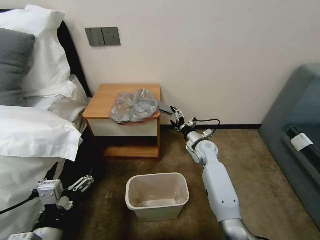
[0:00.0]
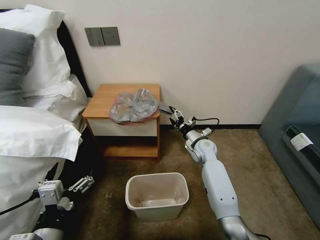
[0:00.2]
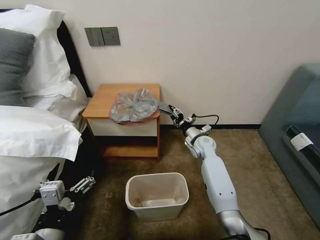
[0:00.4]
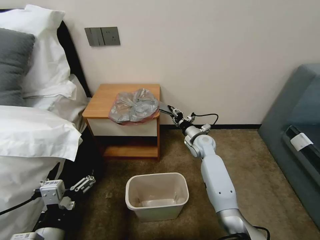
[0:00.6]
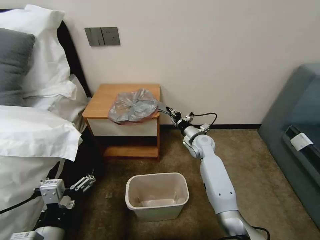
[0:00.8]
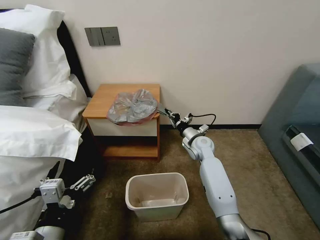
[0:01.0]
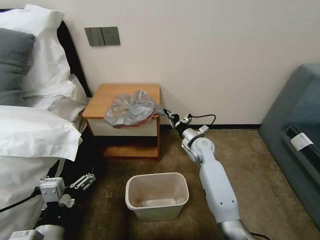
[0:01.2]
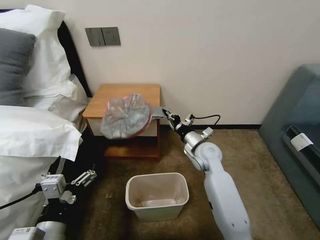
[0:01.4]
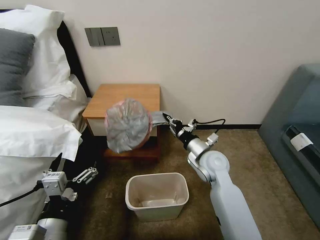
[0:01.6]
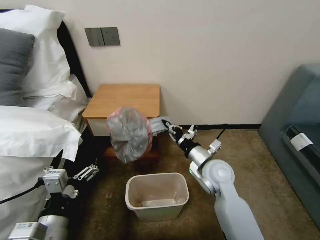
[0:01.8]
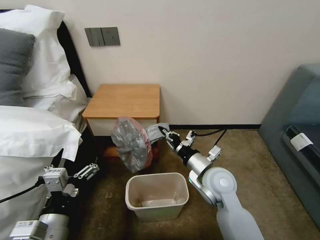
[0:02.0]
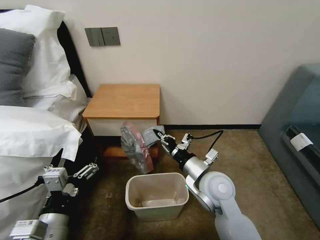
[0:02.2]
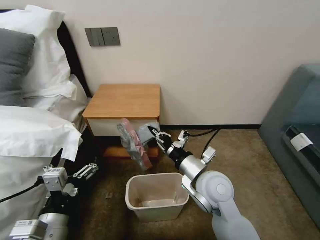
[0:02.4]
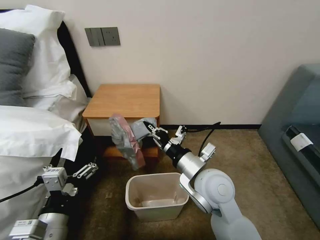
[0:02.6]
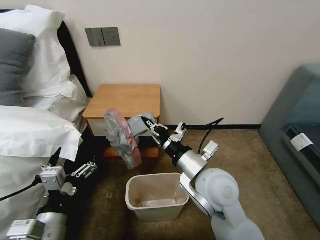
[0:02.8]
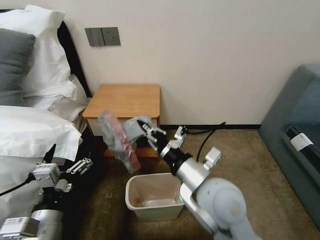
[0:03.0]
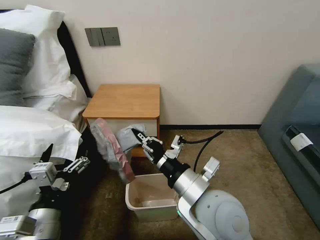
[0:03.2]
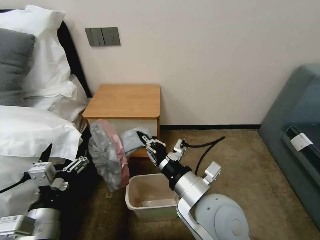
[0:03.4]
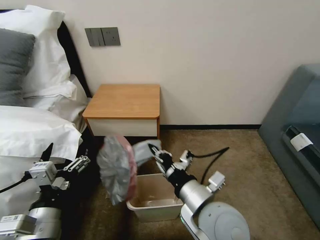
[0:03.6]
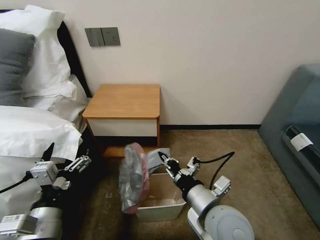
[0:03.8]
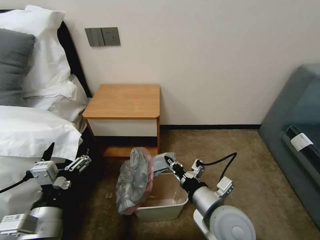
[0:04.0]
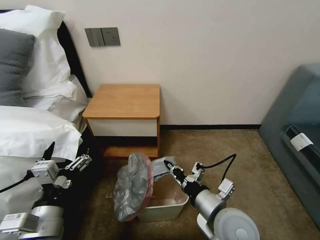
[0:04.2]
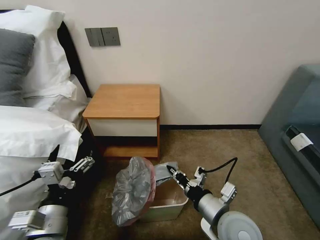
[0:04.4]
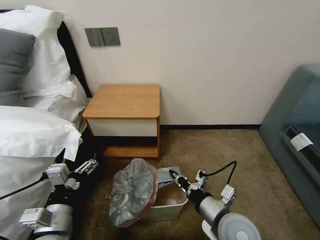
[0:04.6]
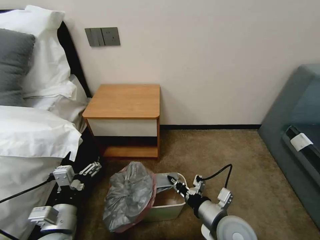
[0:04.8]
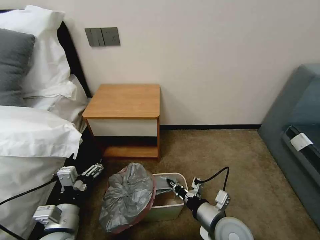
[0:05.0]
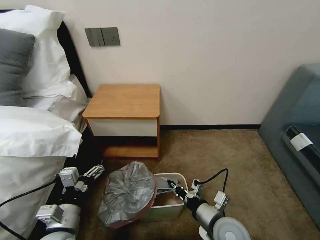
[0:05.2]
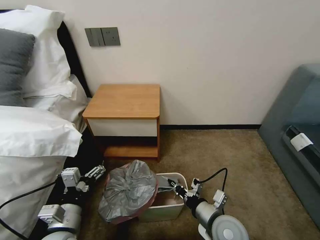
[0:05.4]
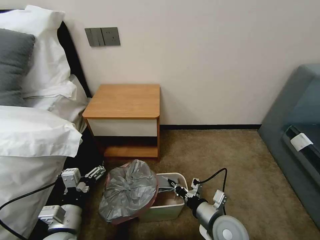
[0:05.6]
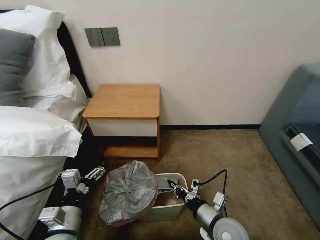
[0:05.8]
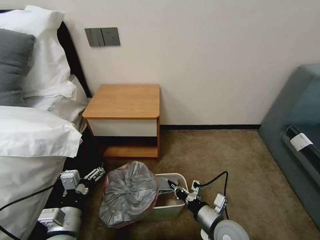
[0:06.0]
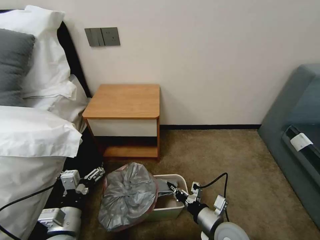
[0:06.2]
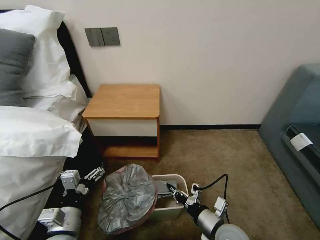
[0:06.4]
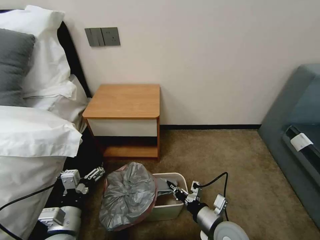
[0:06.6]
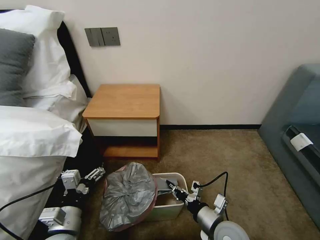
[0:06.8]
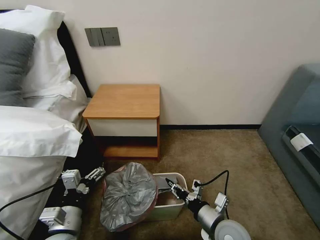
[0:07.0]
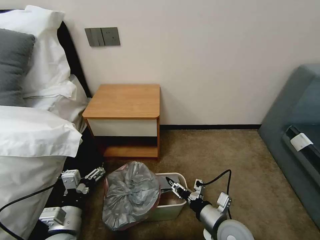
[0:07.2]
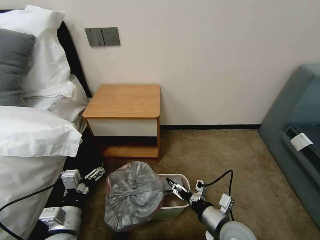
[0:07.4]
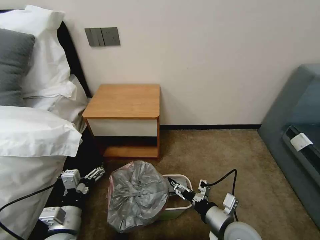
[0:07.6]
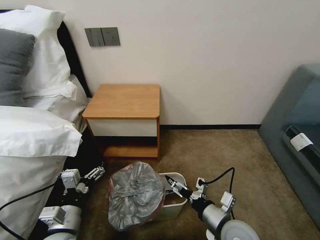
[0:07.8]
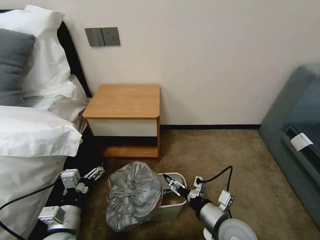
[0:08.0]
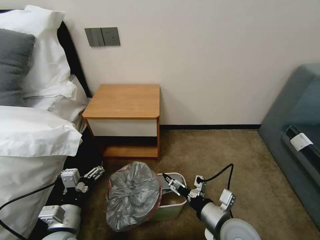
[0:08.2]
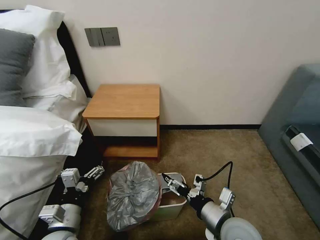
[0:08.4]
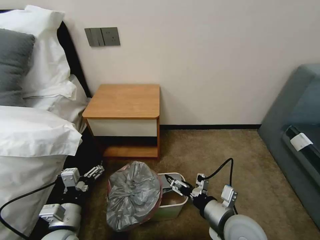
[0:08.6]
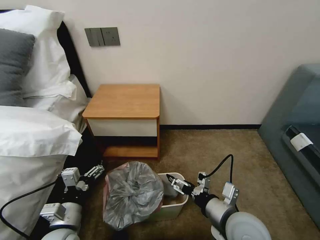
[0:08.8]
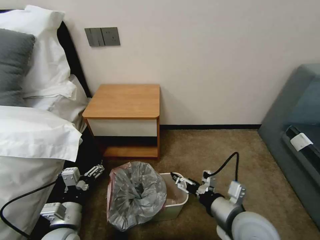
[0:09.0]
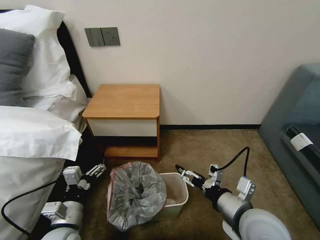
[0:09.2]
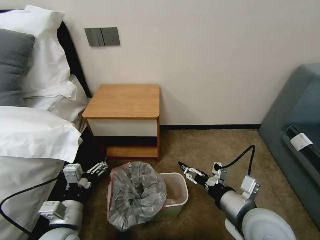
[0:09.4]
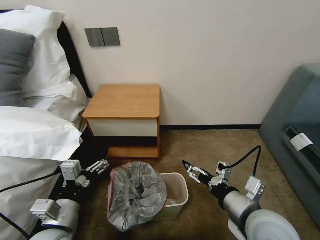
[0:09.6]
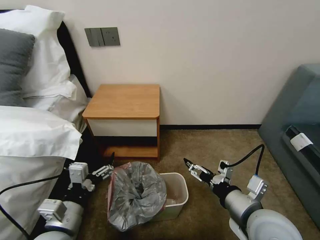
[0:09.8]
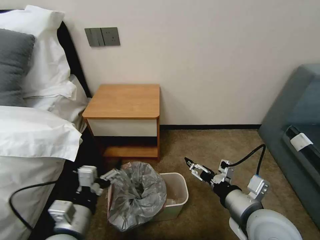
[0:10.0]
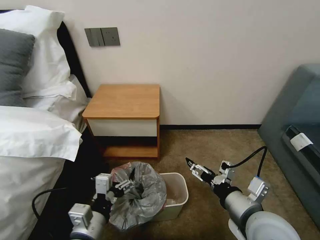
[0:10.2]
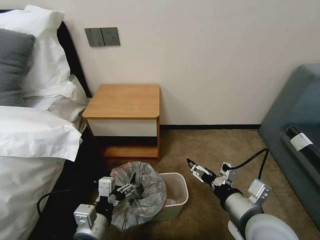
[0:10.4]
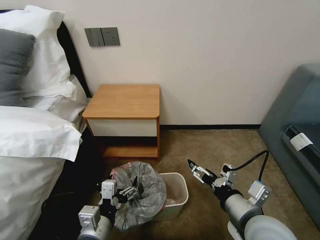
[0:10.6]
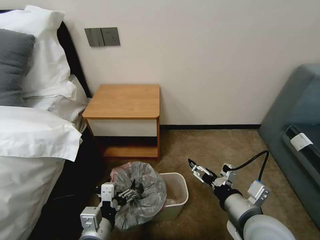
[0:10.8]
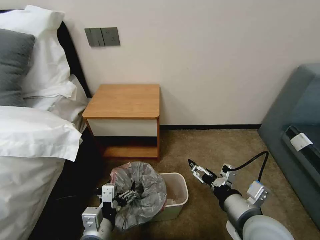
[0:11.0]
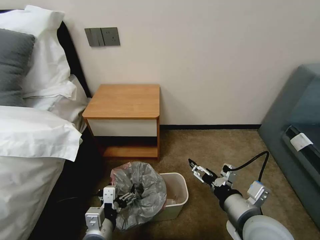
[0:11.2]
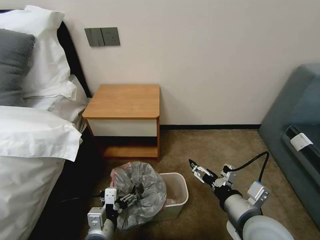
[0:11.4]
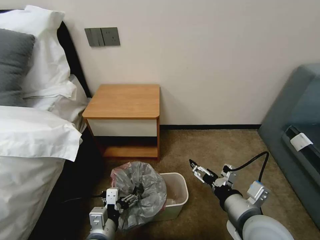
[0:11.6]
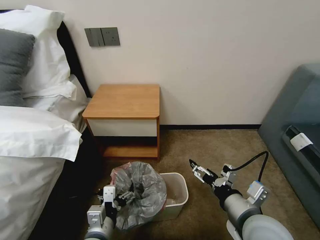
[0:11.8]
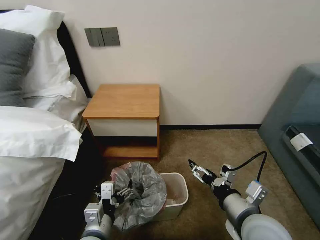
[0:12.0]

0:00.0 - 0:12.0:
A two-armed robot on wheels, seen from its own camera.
Task of the whole recording: Pick up the garbage bag from the table and place it over the trash can.
0:00.0 - 0:01.6: The right gripper heads backward and upward, covering approximately 10 cm, and closes.
0:01.6 - 0:03.0: The right gripper heads backward and upward, covering approximately 20 cm.
0:03.0 - 0:04.4: The right gripper goes some 10 cm downward and to the right.
0:04.4 - 0:06.0: The right gripper goes roughly 10 cm downward, while the left gripper travels downward by roughly 5 cm.
0:06.0 - 0:07.6: The right gripper opens up.
0:07.6 - 0:09.0: The right gripper travels upward by some 10 cm.
0:09.0 - 0:10.4: The left gripper heads to the right, covering approximately 10 cm.
0:10.4 - 0:12.0: The grippers stay close to where they were, moving slightly.

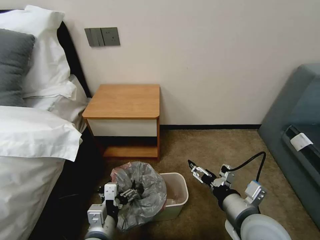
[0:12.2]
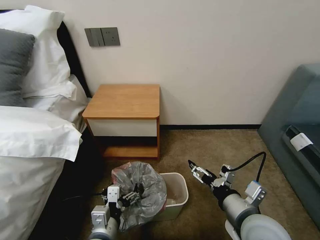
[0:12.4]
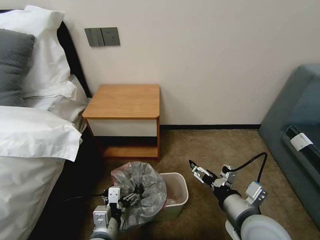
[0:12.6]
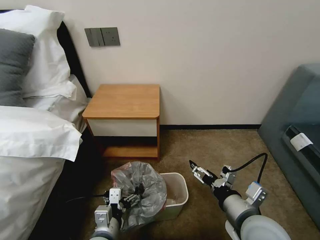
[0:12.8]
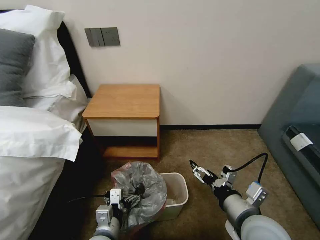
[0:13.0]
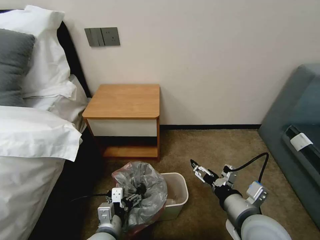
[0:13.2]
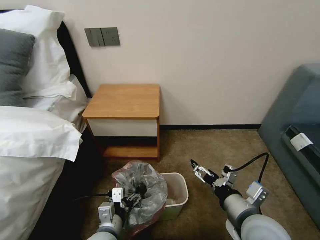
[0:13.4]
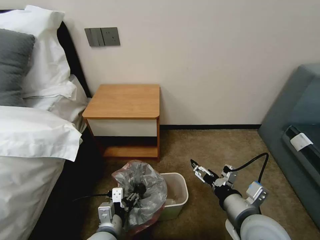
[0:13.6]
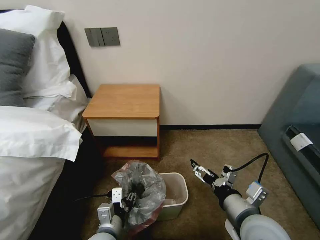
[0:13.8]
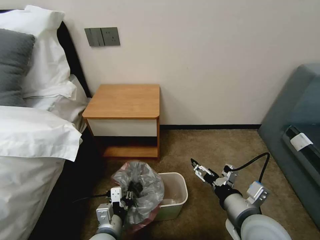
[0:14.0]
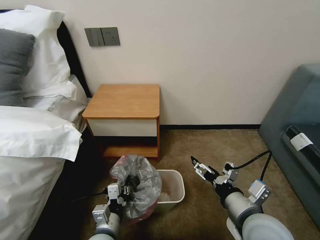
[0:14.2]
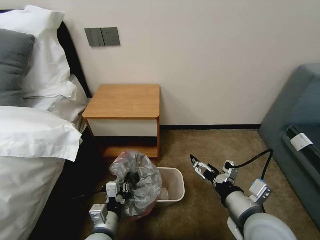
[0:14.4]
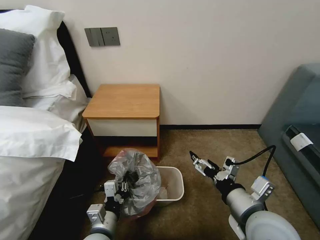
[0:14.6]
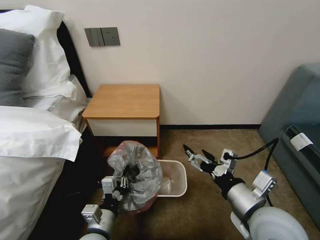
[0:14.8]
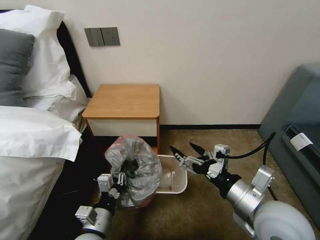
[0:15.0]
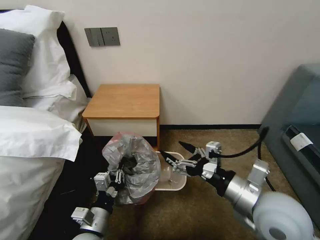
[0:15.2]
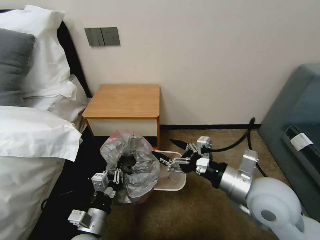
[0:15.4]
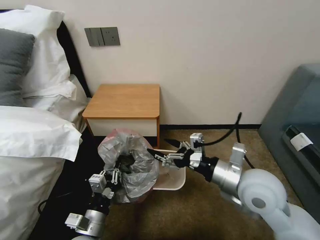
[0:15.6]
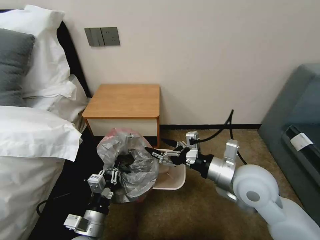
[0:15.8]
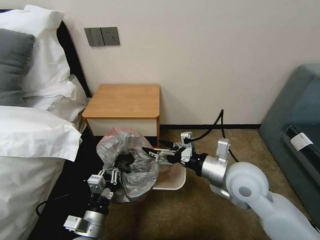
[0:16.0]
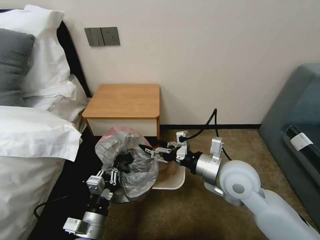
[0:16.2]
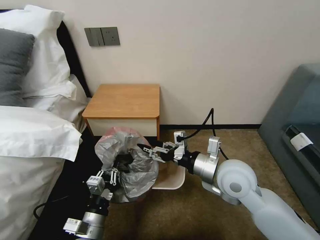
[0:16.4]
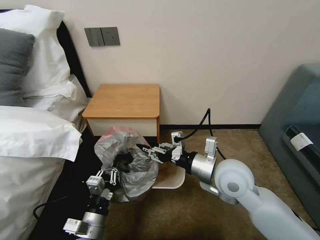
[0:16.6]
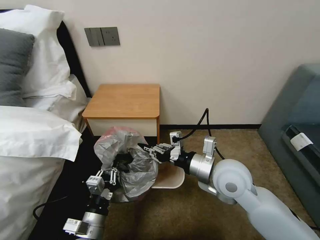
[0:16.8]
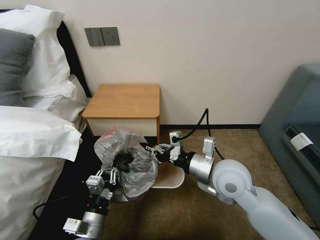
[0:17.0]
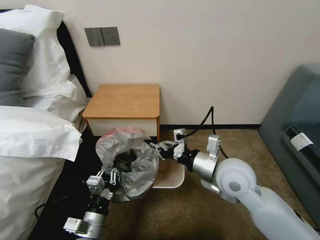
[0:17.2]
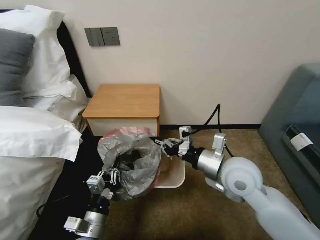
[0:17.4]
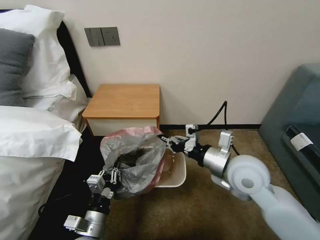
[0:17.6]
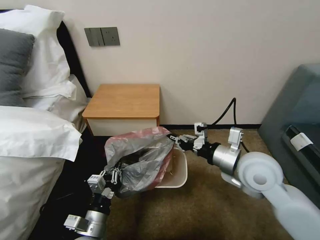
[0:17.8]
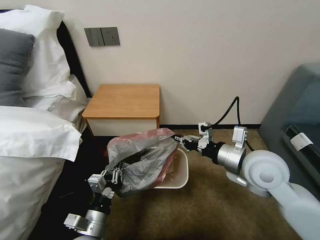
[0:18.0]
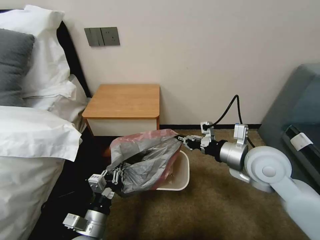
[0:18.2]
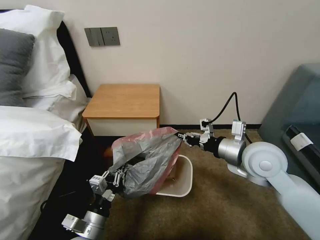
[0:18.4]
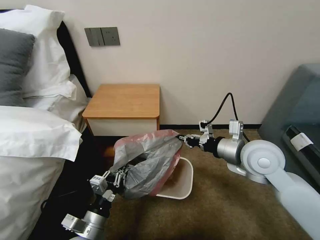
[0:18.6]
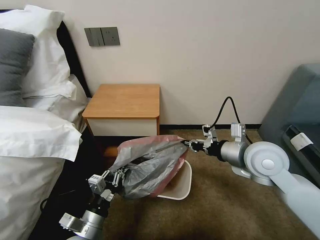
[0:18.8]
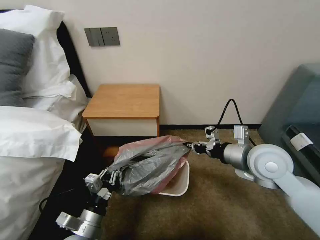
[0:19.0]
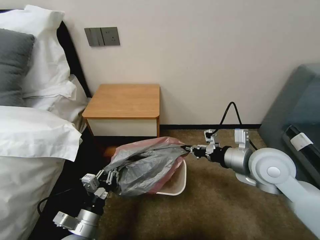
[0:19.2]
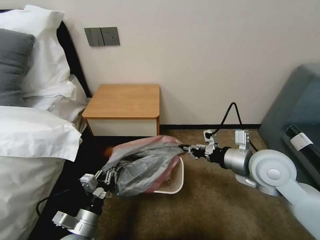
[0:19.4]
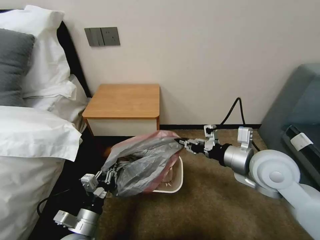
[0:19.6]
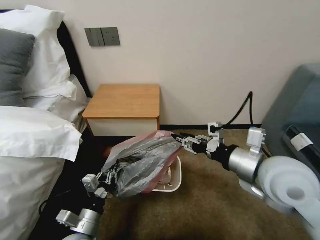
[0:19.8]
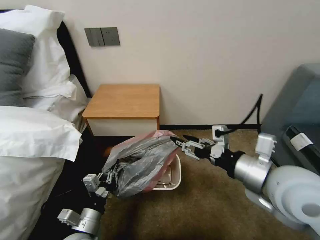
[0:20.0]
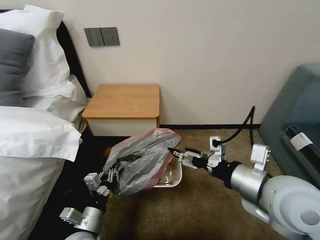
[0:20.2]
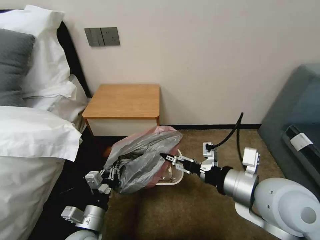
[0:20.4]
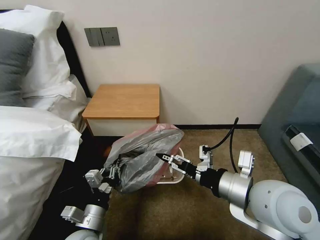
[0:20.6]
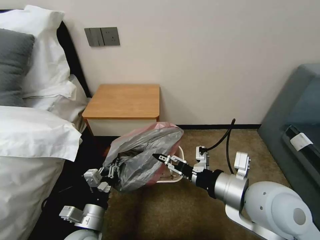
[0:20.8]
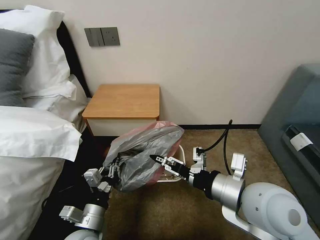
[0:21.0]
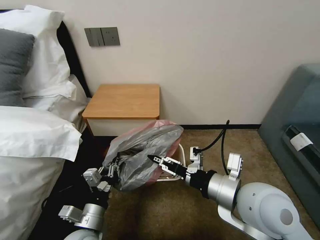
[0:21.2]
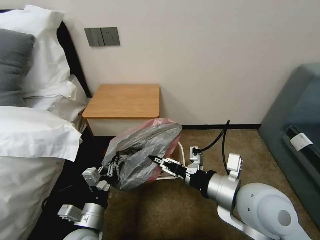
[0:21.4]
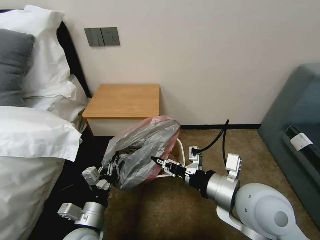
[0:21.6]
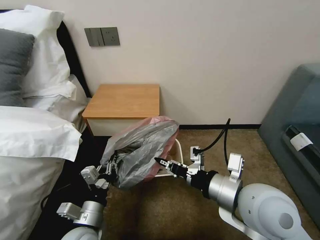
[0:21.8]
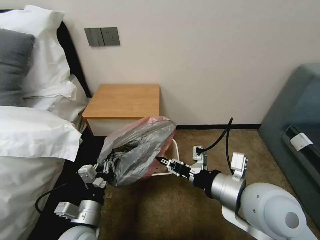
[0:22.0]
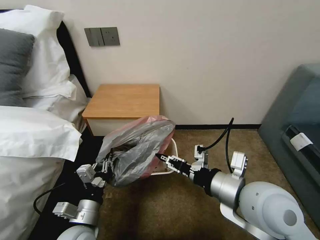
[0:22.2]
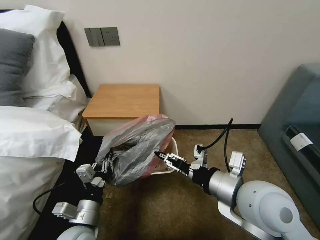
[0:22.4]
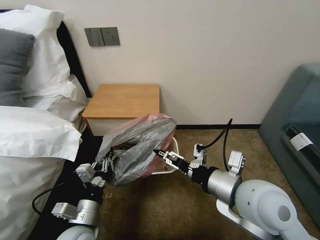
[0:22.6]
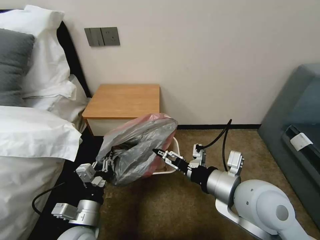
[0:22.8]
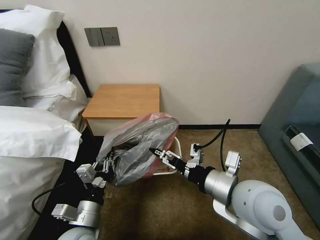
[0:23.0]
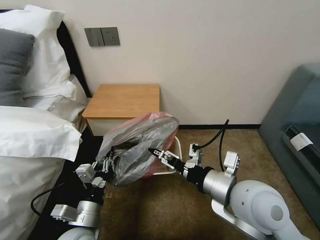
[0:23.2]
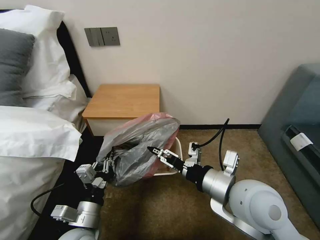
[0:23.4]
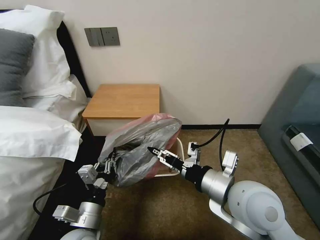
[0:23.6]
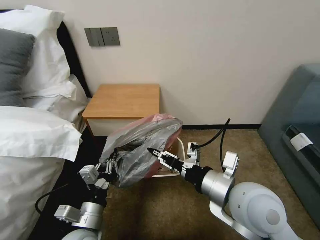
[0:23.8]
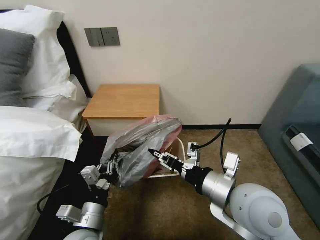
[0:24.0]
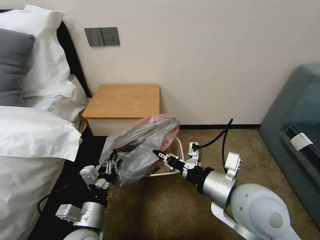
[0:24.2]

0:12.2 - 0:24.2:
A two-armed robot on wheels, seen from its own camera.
Task of the whole recording: Pick up the garbage bag from the table and place it over the trash can.
0:12.2 - 0:13.8: The left gripper travels downward by about 5 cm, and closes.
0:13.8 - 0:15.2: The left gripper closes up; the right gripper goes about 5 cm upward.
0:15.2 - 0:16.6: The right gripper shifts approximately 10 cm forward and to the left, and closes up.
0:16.6 - 0:18.2: The right gripper goes roughly 5 cm to the right, and closes its fingers.
0:18.2 - 0:19.8: The right gripper heads backward, covering some 5 cm, and opens its fingers.
0:19.8 - 0:21.2: The right gripper is displaced to the left by approximately 5 cm.
0:21.2 - 0:22.6: The right gripper closes, then opens again.
0:22.6 - 0:24.2: The right gripper closes up.
